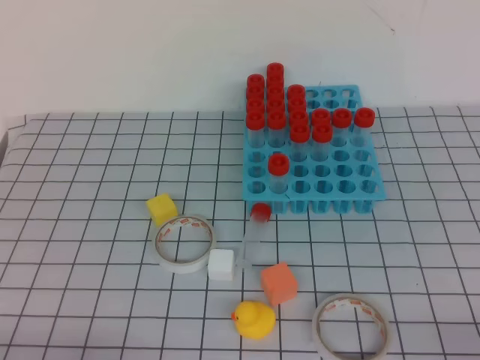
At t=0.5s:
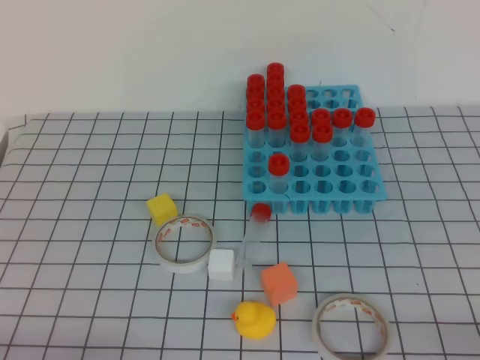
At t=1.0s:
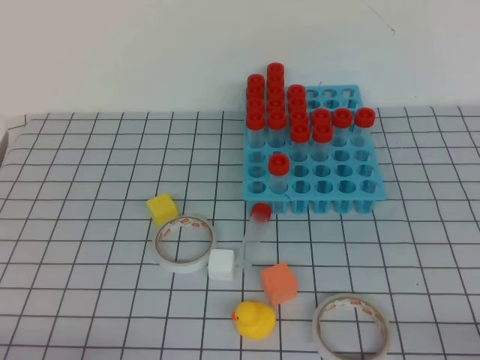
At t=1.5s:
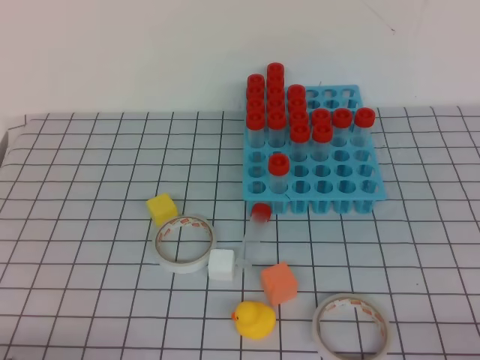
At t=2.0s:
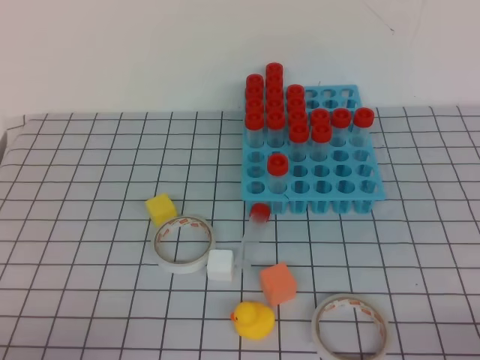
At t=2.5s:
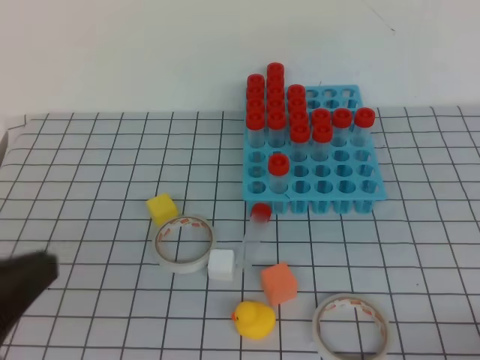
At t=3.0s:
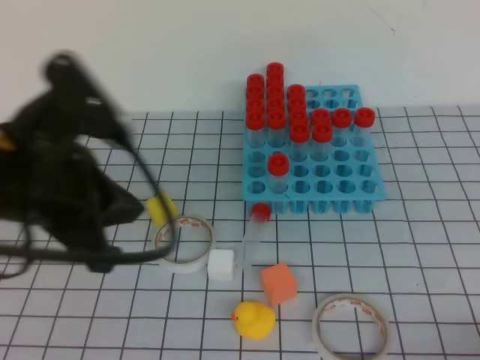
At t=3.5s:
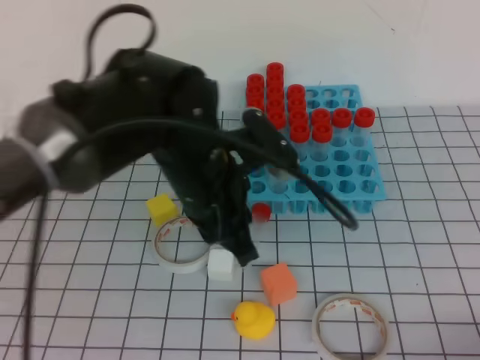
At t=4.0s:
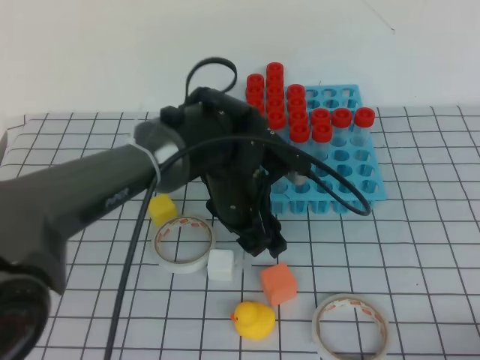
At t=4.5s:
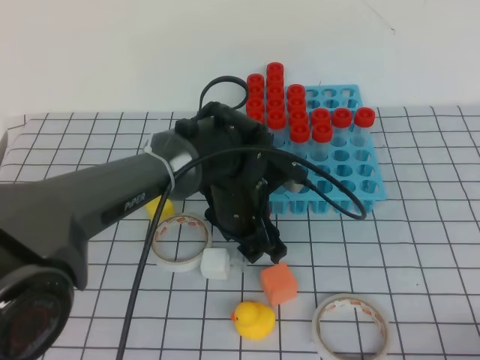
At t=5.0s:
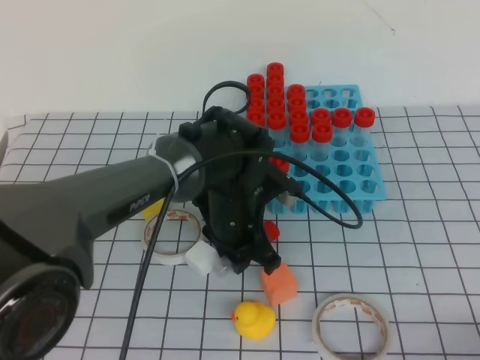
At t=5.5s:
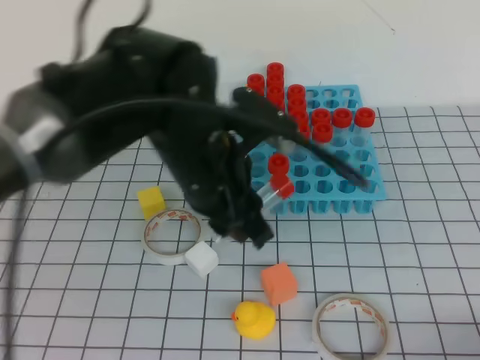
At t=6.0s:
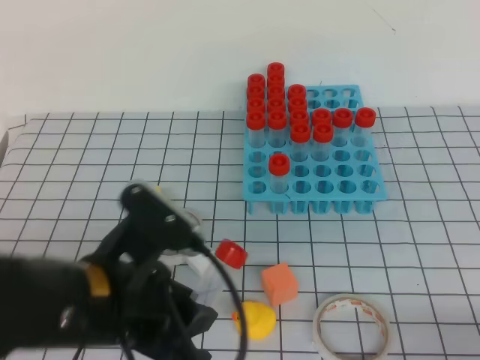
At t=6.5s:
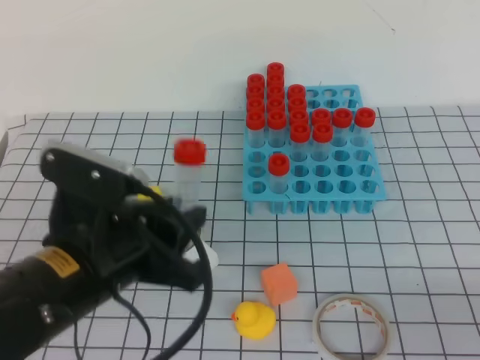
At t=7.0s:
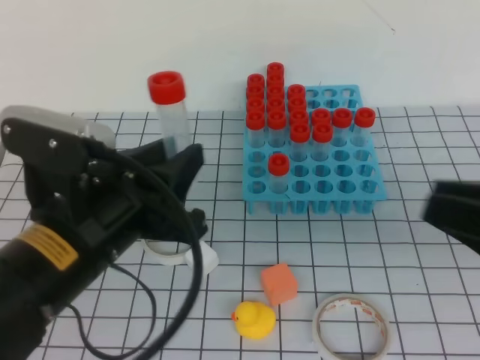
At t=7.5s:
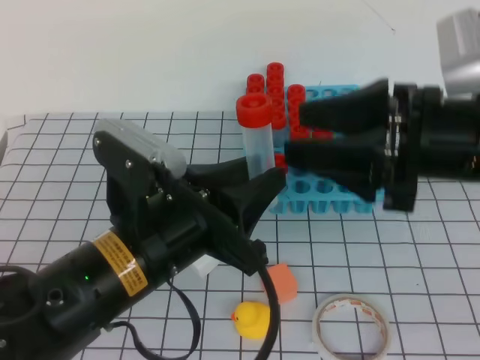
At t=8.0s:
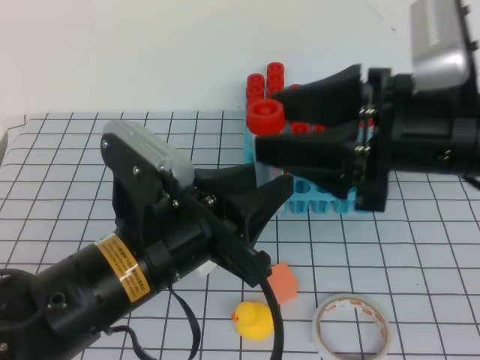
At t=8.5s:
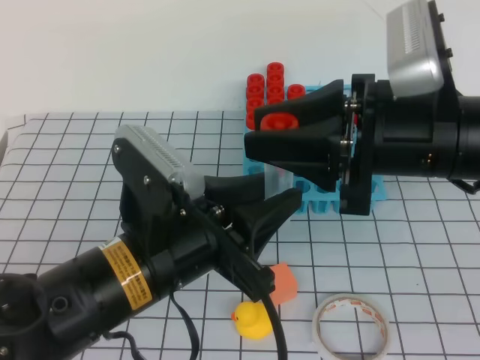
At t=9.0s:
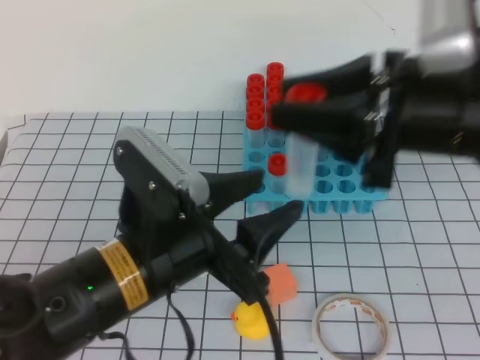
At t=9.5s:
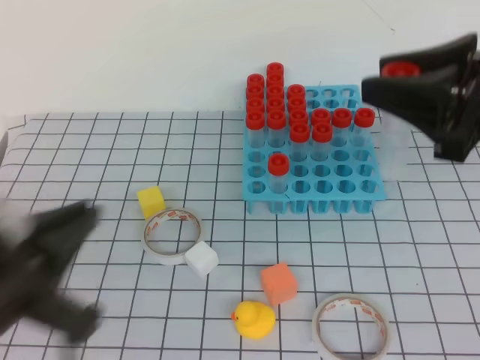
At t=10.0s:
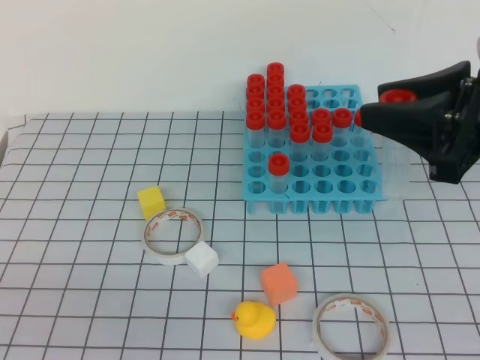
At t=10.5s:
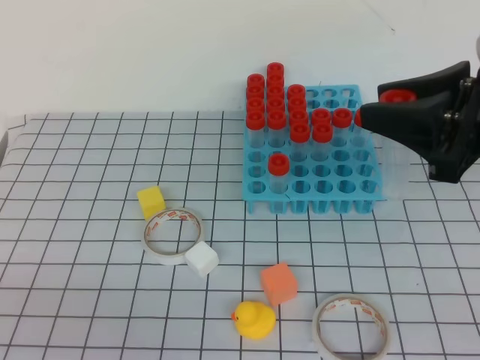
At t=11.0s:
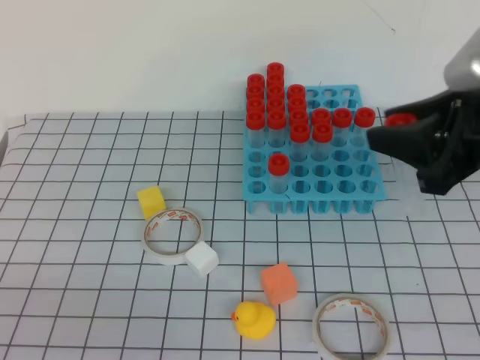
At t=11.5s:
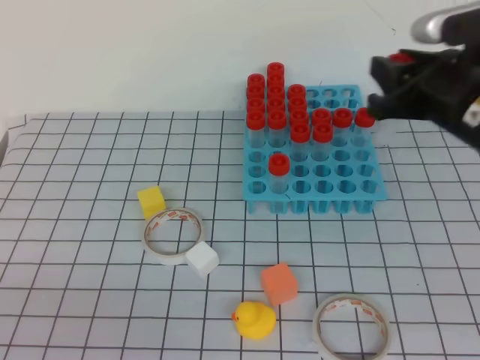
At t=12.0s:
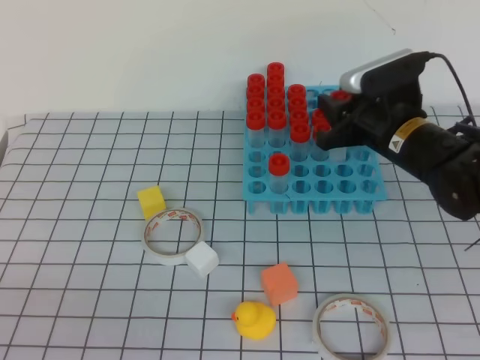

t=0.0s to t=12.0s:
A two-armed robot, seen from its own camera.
t=2.0s to t=4.0s: The left gripper shifts approximately 40 cm forward and to the right, and opens its fingers.
t=4.0s to t=6.0s: The left gripper heads backward and to the left, covering about 20 cm, and closes up.
t=6.0s to t=8.0s: The right gripper travels forward, upward and to the left by about 30 cm, and opens.
t=8.0s to t=10.0s: The right gripper heads to the right, covering approximately 5 cm, and closes its fingers. The left gripper travels to the left and backward by about 20 cm, and closes.
t=10.0s to t=12.0s: The right gripper goes roughly 20 cm forward and downward.

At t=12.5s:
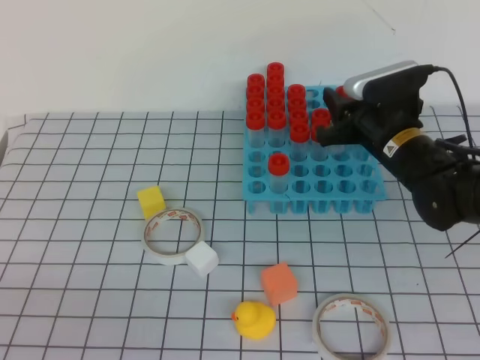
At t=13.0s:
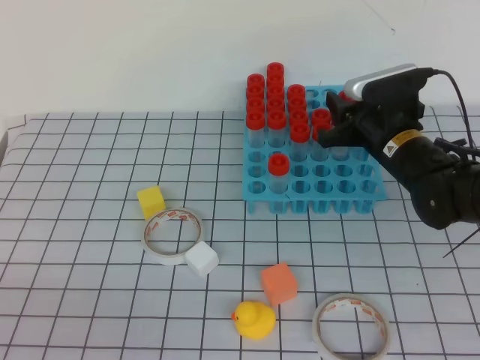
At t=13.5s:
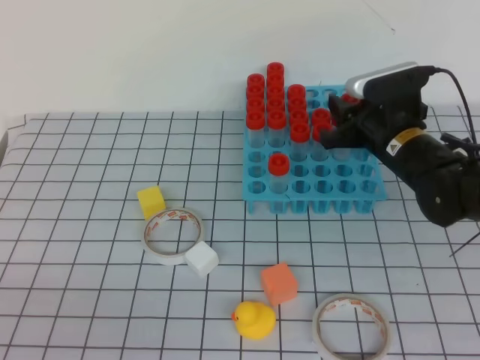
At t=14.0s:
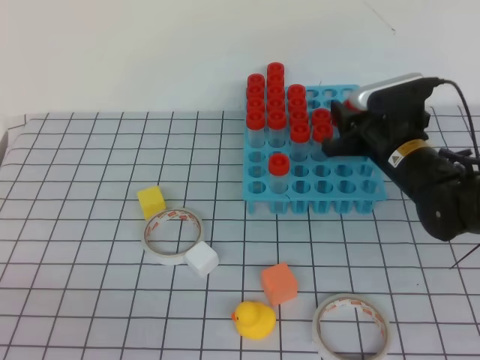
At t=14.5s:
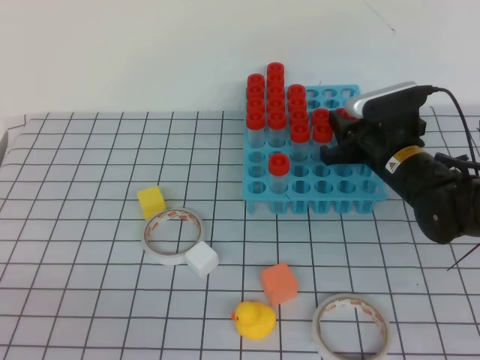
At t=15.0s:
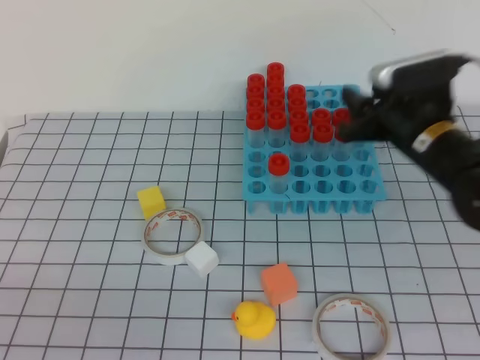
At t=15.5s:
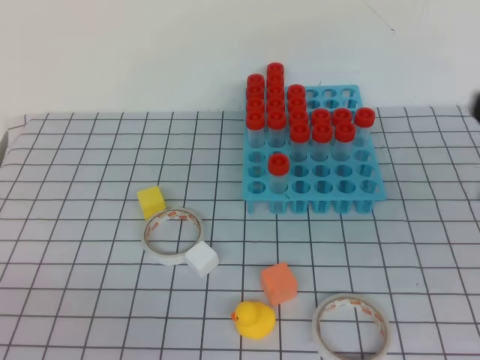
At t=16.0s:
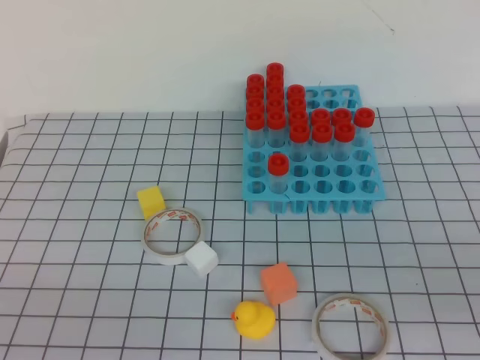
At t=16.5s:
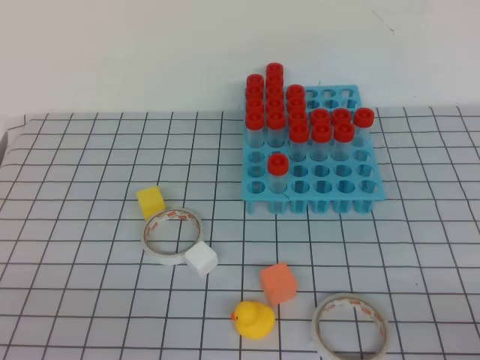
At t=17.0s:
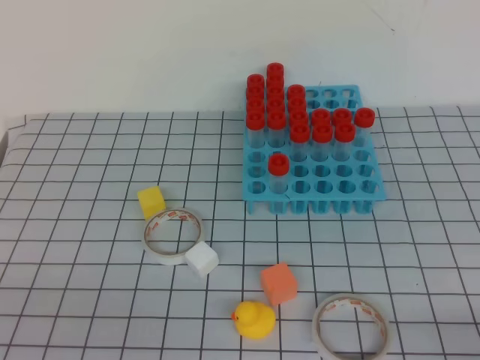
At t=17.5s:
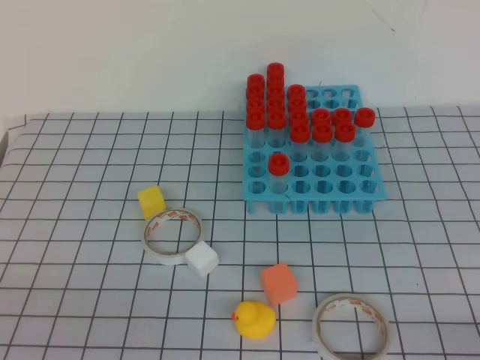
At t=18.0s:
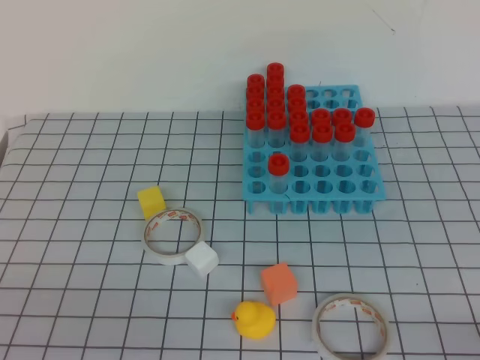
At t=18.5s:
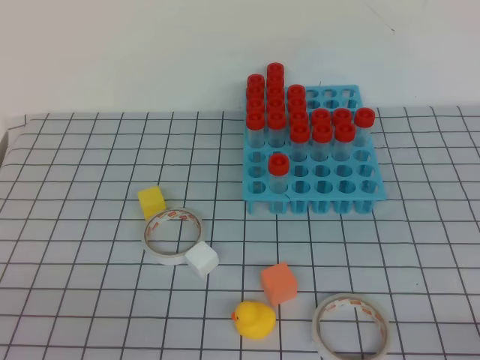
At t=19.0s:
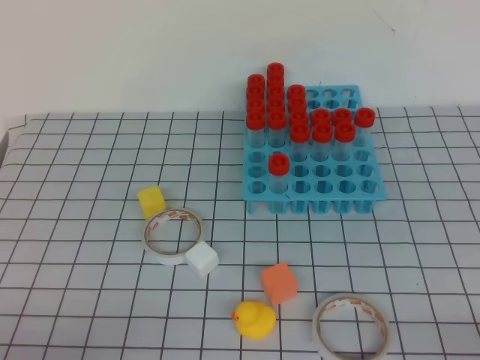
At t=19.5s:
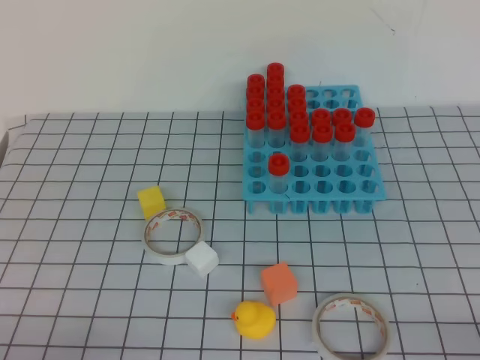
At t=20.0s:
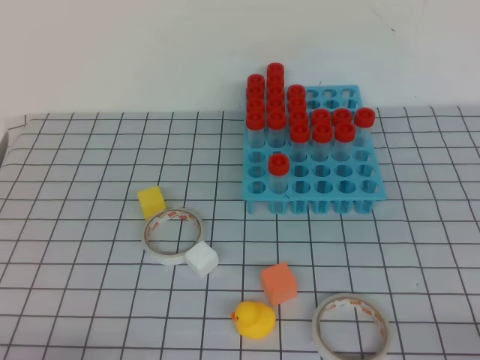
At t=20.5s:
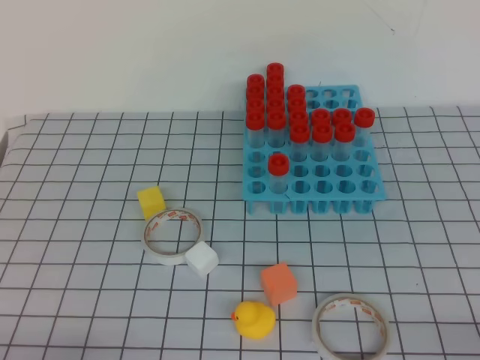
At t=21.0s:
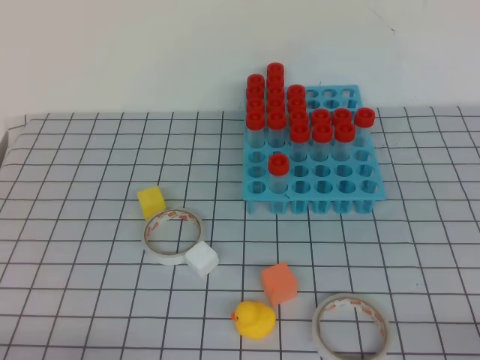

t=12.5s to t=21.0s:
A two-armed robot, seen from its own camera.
t=12.5s to t=14.5s: There are only small adjustments of the grippers.
t=14.5s to t=16.5s: The right gripper goes roughly 35 cm backward, and closes.
